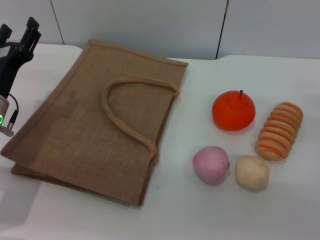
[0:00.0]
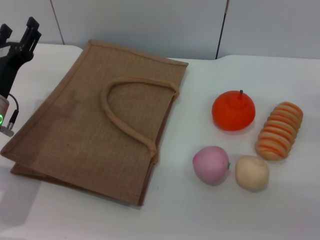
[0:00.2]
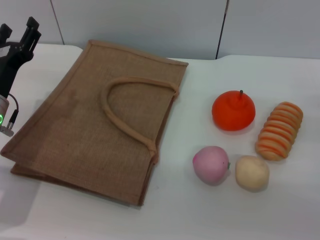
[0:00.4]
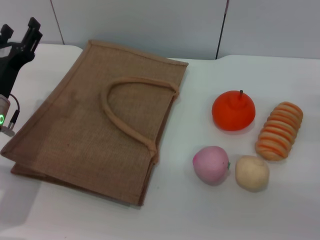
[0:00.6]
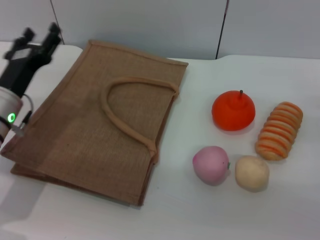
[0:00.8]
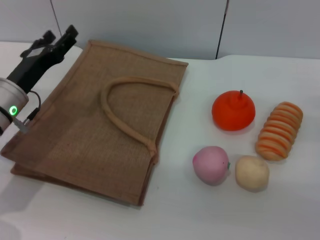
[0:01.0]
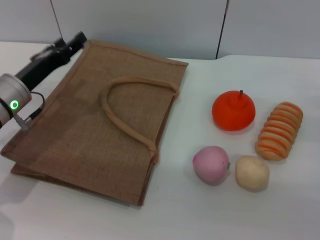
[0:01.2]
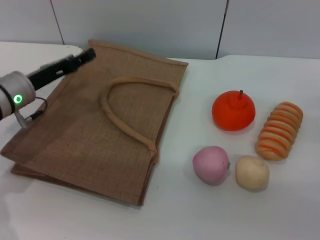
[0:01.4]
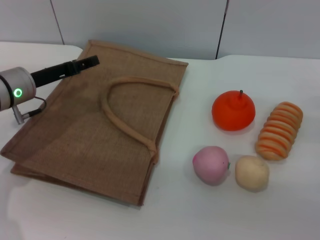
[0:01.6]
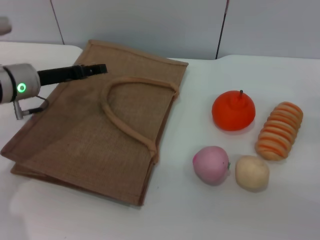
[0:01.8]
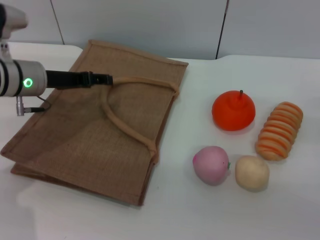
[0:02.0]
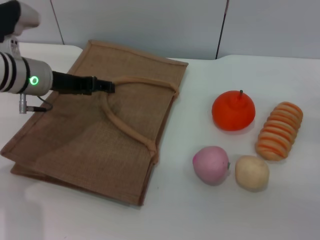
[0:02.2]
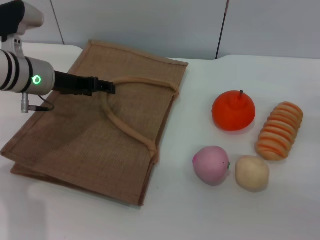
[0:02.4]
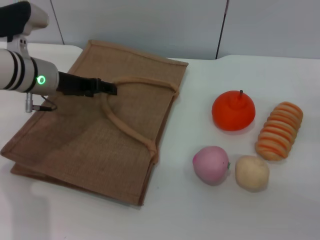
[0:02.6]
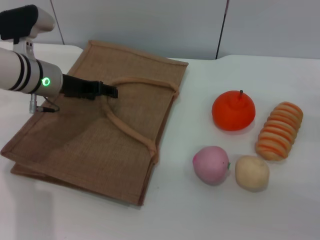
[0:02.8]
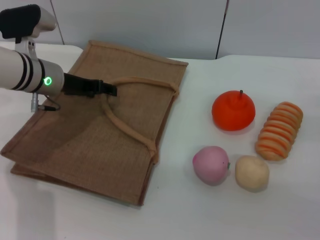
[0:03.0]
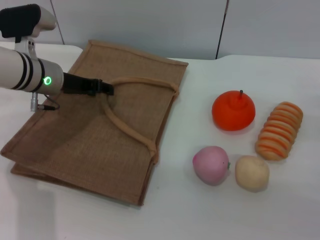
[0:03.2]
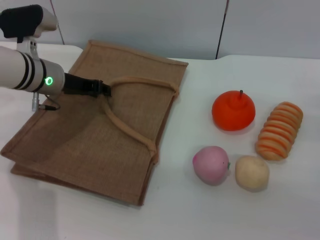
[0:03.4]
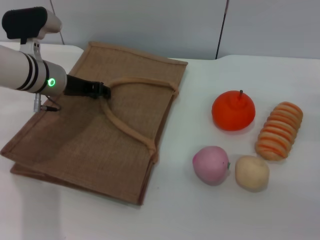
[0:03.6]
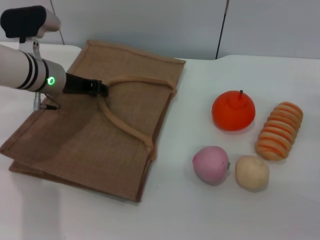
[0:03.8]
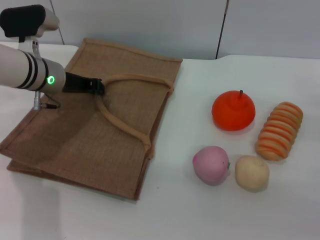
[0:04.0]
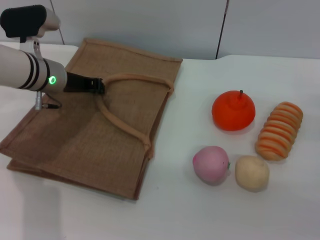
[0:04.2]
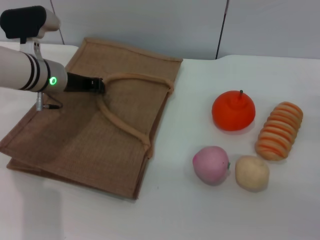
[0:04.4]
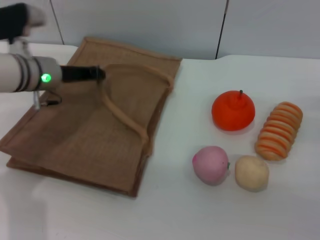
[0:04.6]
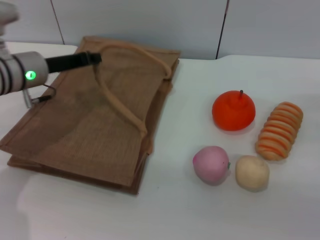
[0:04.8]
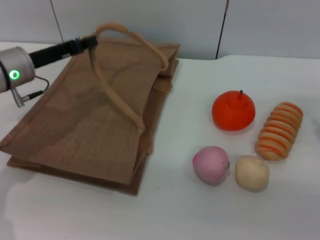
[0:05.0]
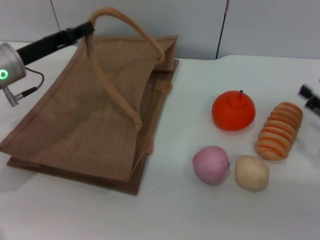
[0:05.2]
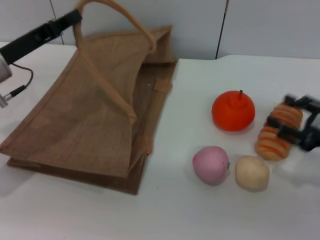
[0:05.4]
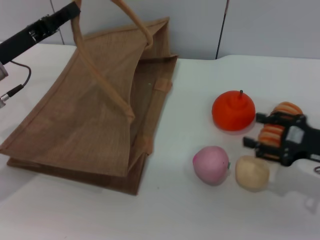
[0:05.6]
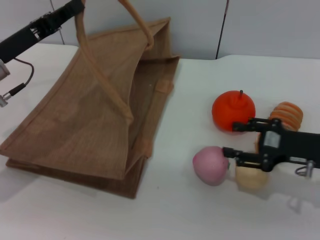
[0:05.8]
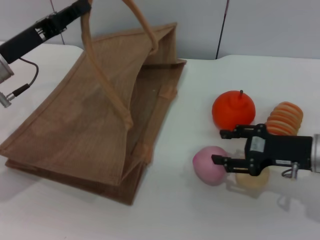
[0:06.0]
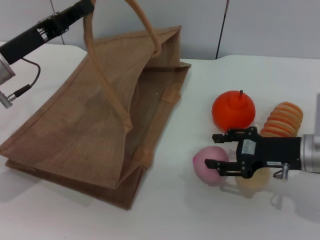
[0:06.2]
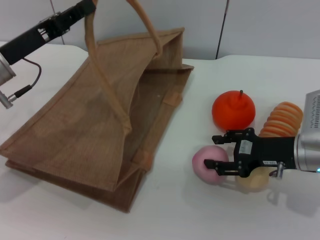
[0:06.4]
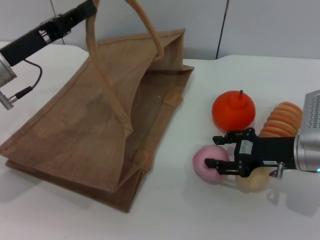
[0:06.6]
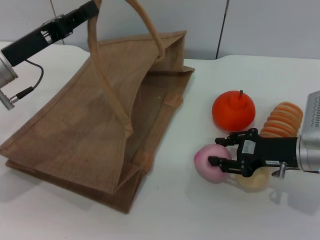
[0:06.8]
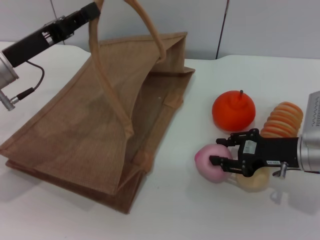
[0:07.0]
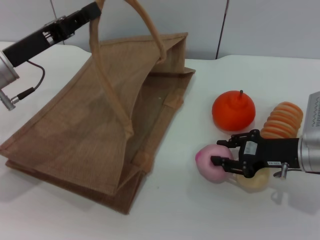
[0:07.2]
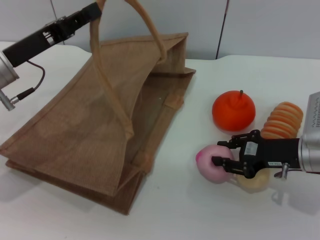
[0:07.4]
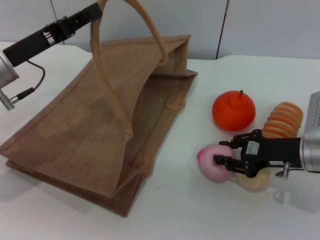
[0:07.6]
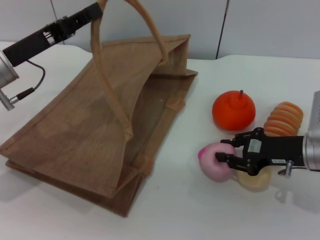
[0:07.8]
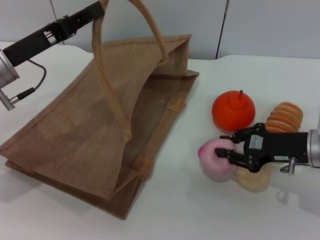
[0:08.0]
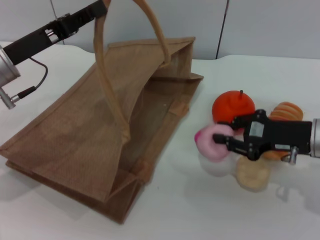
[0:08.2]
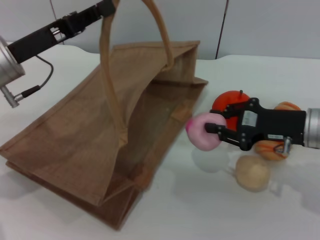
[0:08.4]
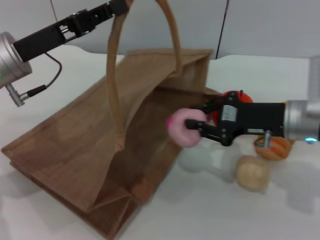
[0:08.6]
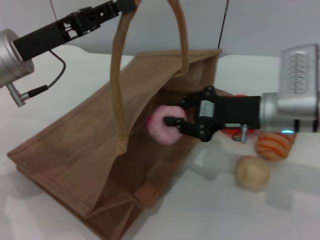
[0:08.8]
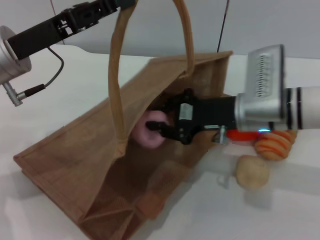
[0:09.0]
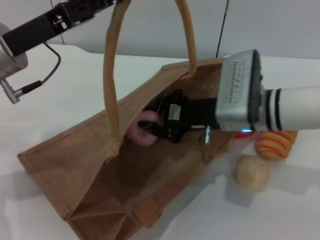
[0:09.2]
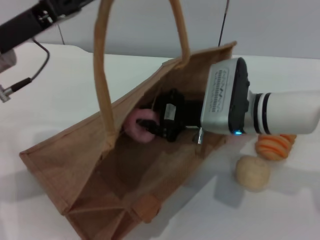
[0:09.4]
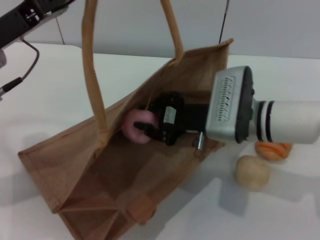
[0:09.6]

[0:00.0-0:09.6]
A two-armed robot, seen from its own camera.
Task of the whole recording: pick up the peach from the table and place it in the brown handbag.
Step, 0:00.0 to 0:05.0: Lift the woven bag with the left gripper to open it.
Step, 0:05.2 to 0:08.2: Pick up the peach with the right gripper.
0:00.0 to 0:01.6: The left gripper goes roughly 5 cm forward.
0:01.6 to 0:03.2: The left gripper changes place by some 5 cm.
0:03.2 to 0:04.8: The left gripper closes.
0:04.8 to 0:06.4: The right gripper moves to the left, about 10 cm, while the left gripper goes about 5 cm backward.
0:06.4 to 0:08.0: The right gripper closes.
0:08.0 to 0:09.6: The right gripper shifts approximately 15 cm to the left.

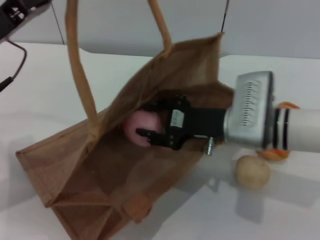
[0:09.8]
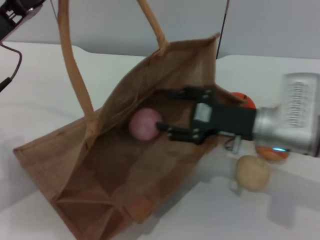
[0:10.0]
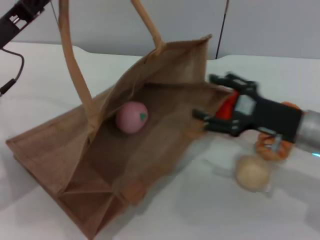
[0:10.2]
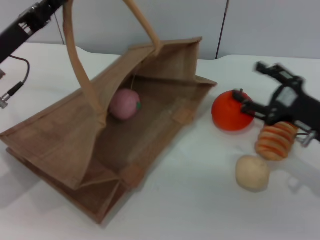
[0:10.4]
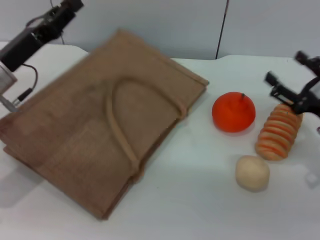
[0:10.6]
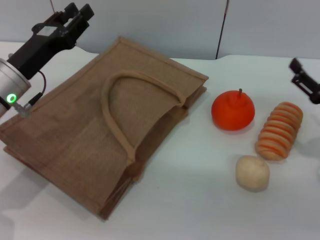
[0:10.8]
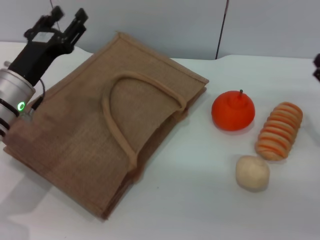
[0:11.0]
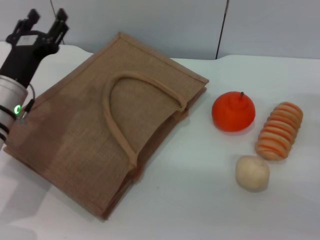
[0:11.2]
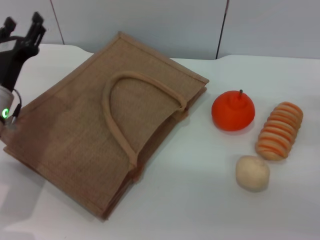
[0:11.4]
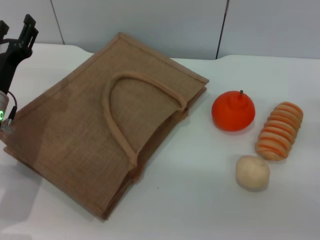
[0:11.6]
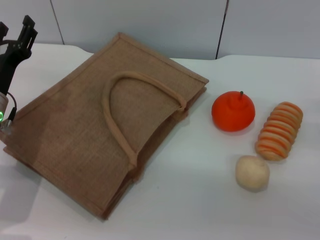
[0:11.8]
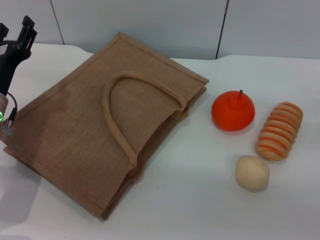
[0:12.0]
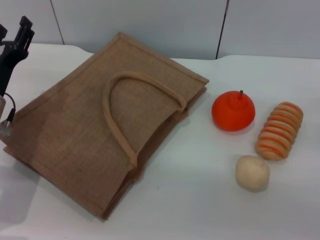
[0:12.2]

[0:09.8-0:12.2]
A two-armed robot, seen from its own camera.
Task of the whole recording: pick up the peach from the table and place it in the brown handbag.
Step, 0:10.6 to 0:11.0: Lower the woven bag with the left gripper to close it.
0:09.8 to 0:11.0: The right gripper goes about 20 cm to the right, and opens its fingers, while the left gripper goes some 10 cm downward, and opens up.
0:11.0 to 0:12.2: The left gripper opens up.

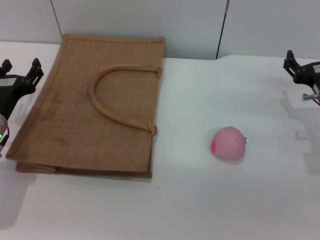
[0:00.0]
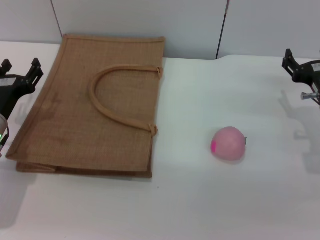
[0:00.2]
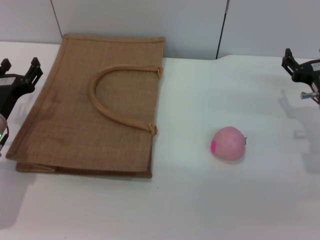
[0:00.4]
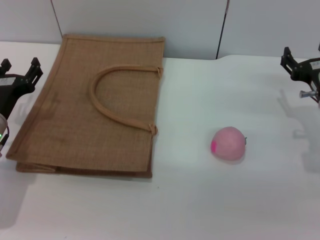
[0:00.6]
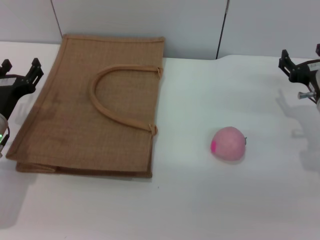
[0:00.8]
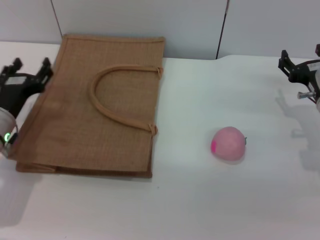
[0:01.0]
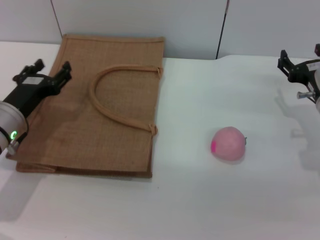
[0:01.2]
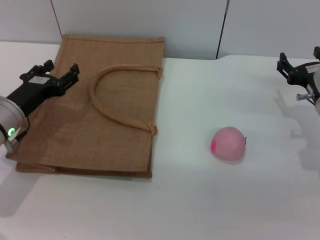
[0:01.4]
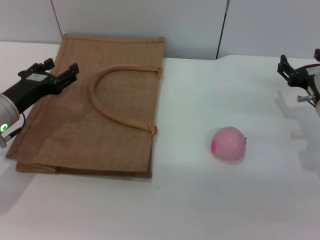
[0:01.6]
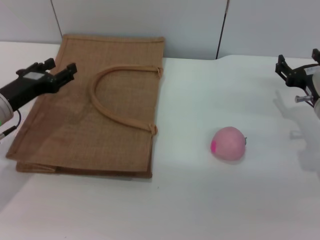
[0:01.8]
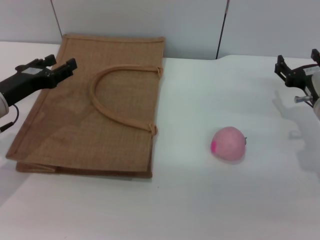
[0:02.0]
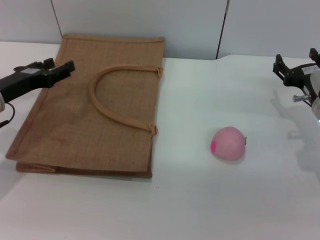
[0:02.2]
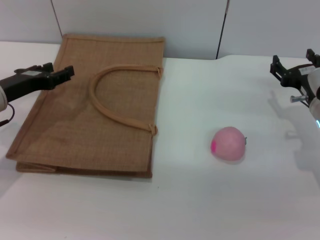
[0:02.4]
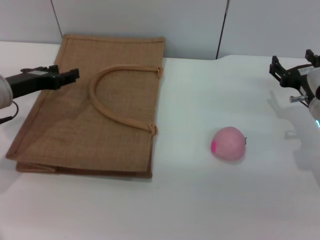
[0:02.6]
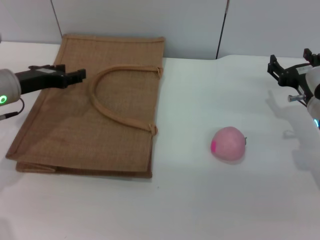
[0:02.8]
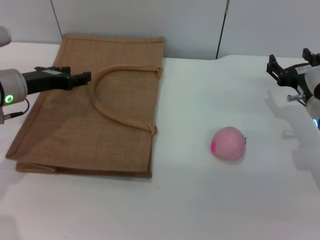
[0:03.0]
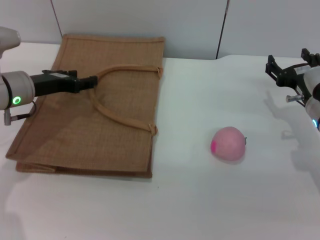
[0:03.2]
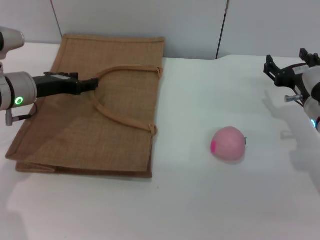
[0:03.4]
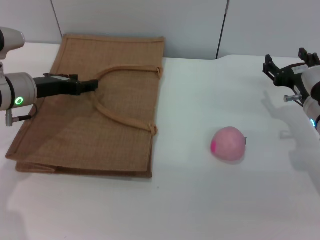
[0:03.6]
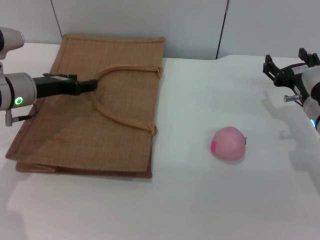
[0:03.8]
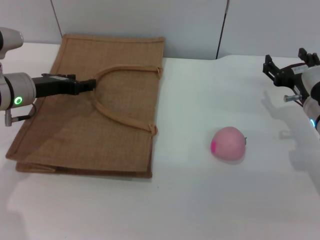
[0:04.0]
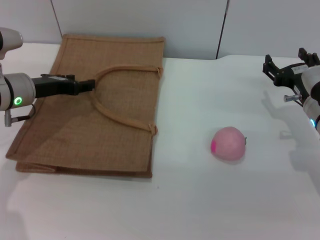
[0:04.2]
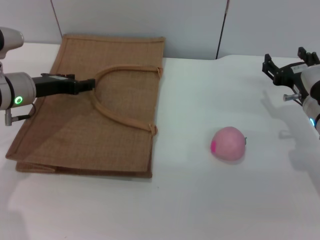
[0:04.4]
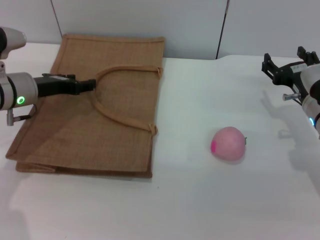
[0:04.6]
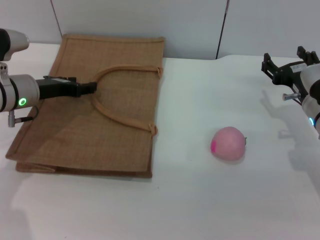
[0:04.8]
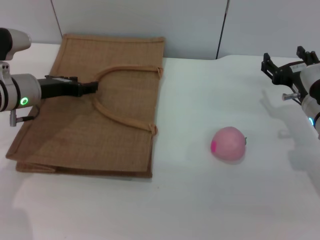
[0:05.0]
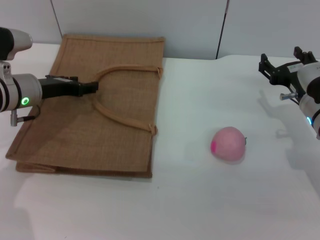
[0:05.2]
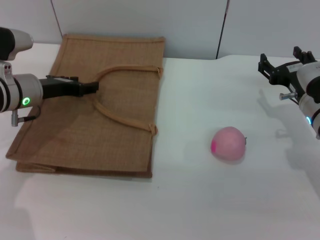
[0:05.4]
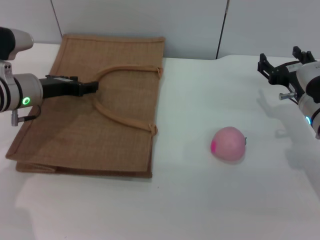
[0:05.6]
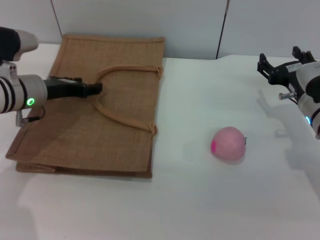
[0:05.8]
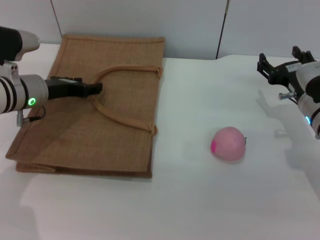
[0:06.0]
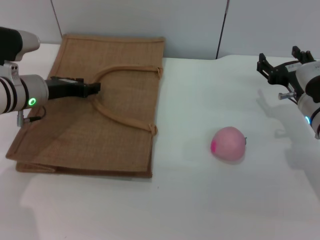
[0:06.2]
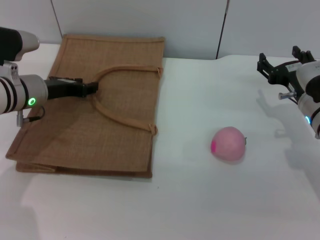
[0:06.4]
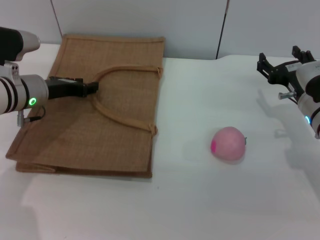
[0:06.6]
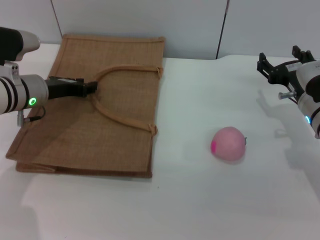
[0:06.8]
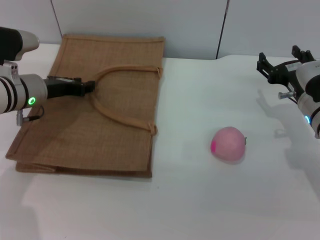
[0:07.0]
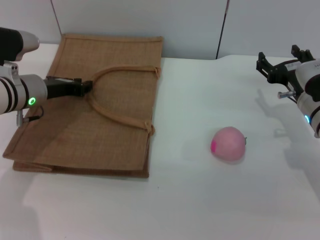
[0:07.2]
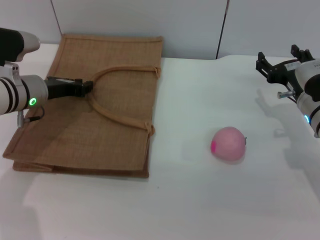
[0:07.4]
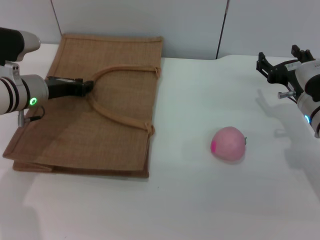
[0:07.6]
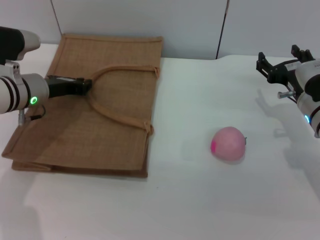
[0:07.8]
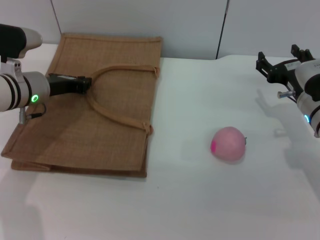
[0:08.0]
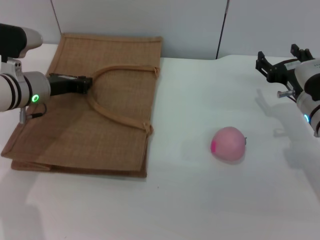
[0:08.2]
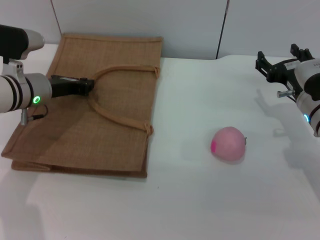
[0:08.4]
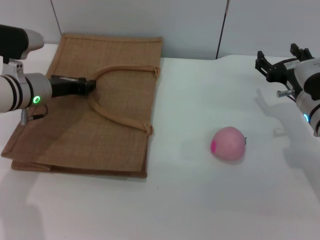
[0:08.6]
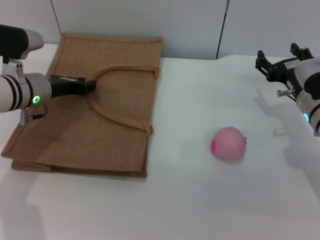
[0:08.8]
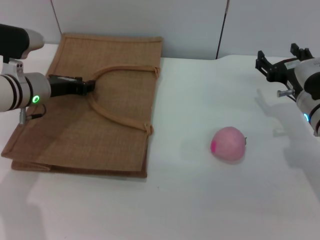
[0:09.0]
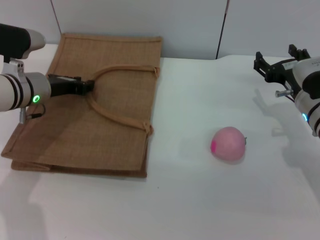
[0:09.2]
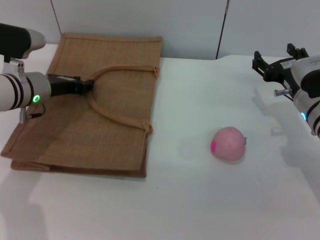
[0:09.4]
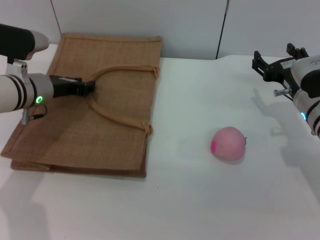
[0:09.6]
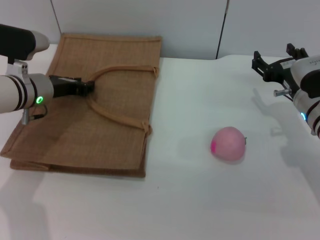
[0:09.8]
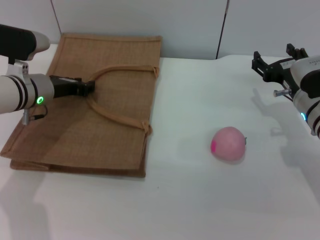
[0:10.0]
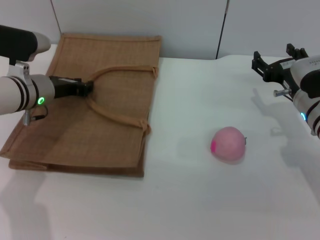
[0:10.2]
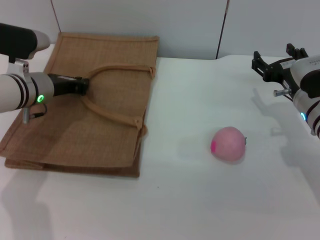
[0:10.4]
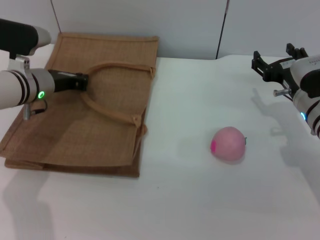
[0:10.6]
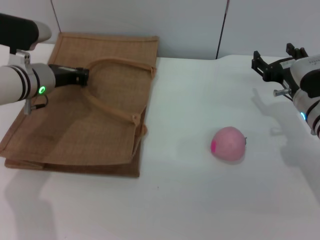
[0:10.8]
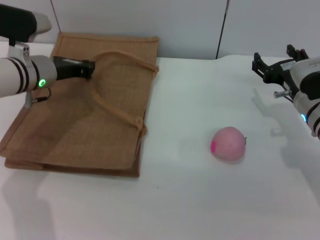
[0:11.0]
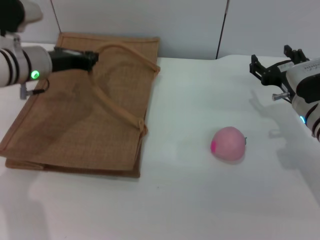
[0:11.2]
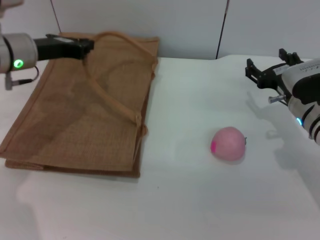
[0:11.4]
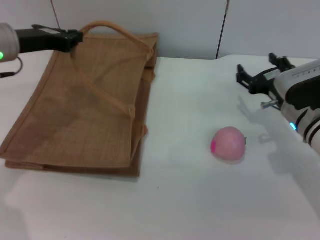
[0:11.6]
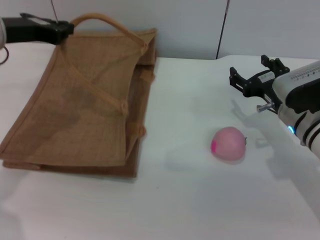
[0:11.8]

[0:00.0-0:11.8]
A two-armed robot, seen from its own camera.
Task of the whole recording: pick up the peach from the table and place it in the brown handbag.
Step, 0:00.0 to 0:11.2: Lift the woven bag with the left gripper to open it.
0:00.0 to 0:01.4: The grippers move only a little.
0:01.4 to 0:03.0: The left gripper travels forward by about 5 cm.
0:03.0 to 0:06.0: There are only small adjustments of the grippers.
0:06.0 to 0:08.8: Both grippers stay put.
0:08.8 to 0:10.4: There are only small adjustments of the grippers.
0:10.4 to 0:11.8: The left gripper shifts about 15 cm upward.
